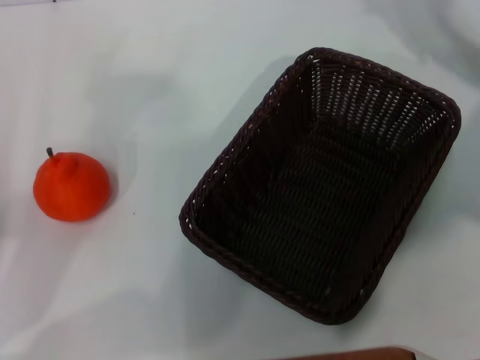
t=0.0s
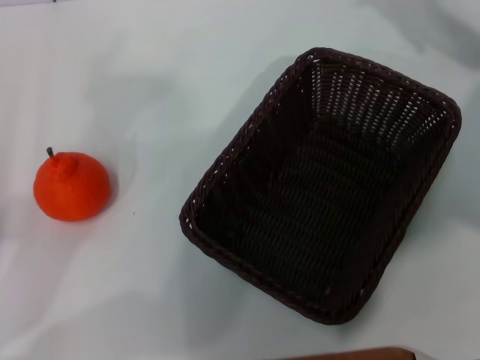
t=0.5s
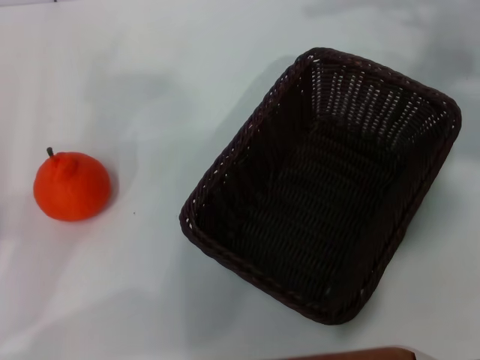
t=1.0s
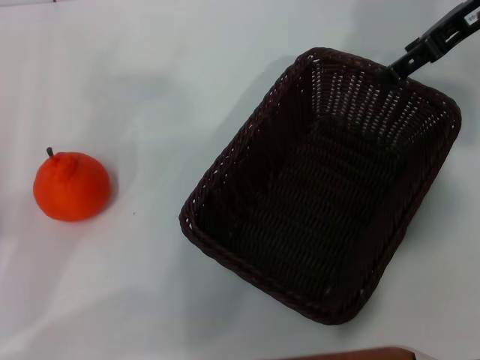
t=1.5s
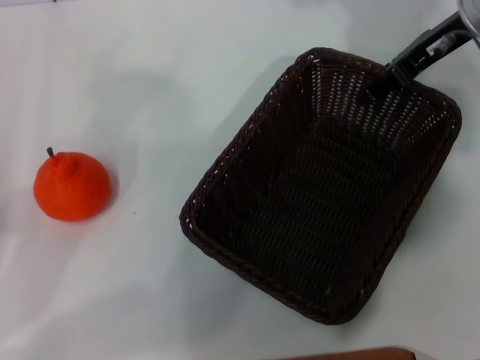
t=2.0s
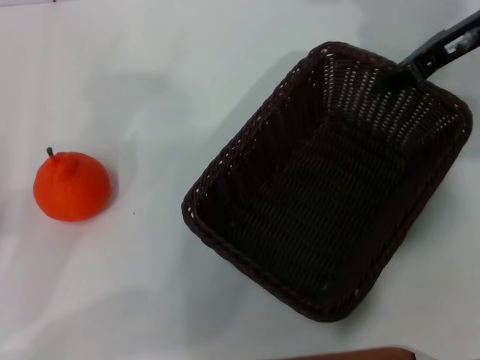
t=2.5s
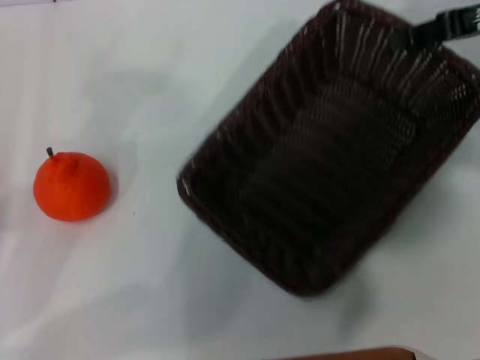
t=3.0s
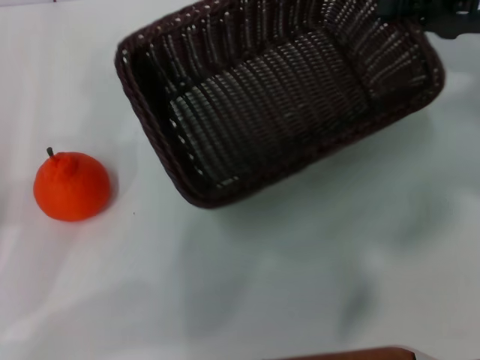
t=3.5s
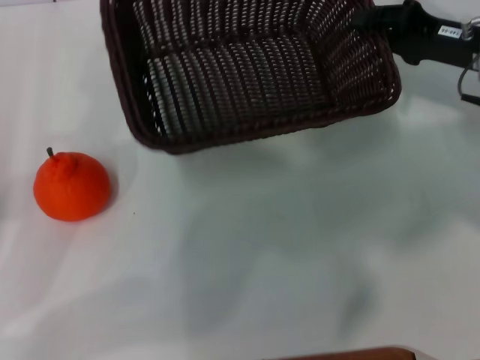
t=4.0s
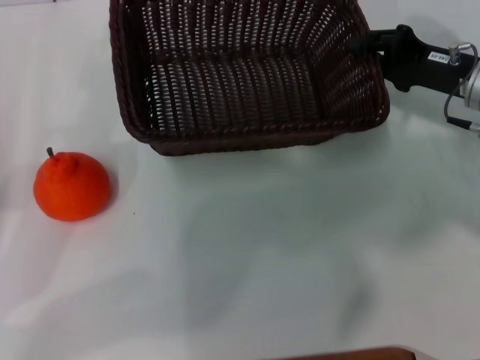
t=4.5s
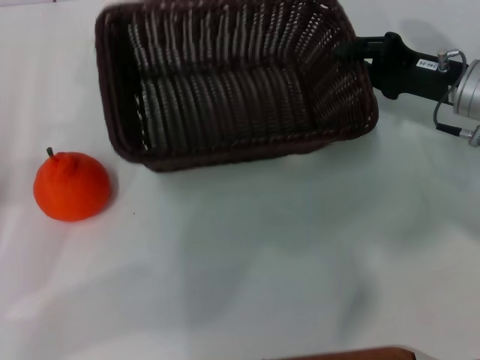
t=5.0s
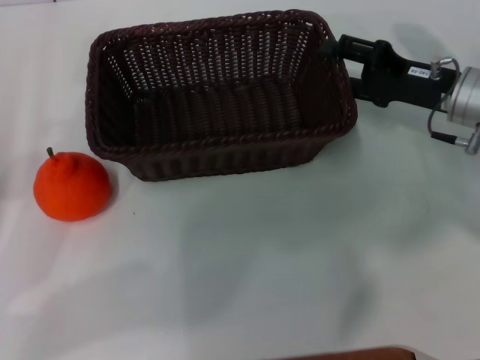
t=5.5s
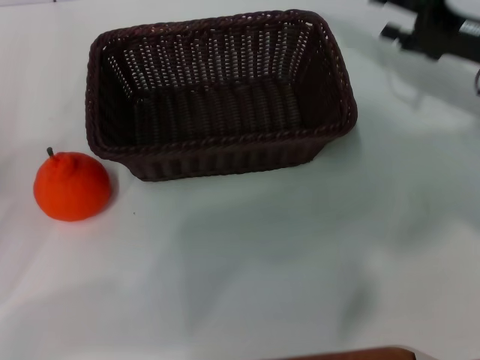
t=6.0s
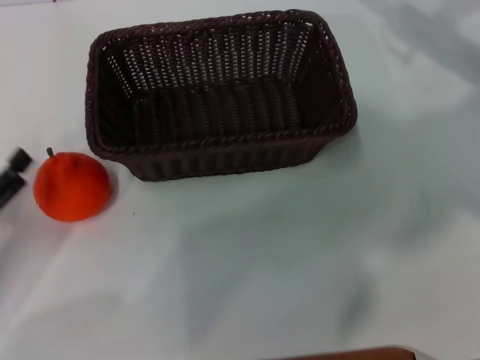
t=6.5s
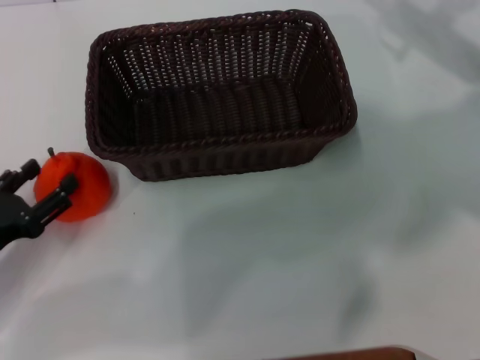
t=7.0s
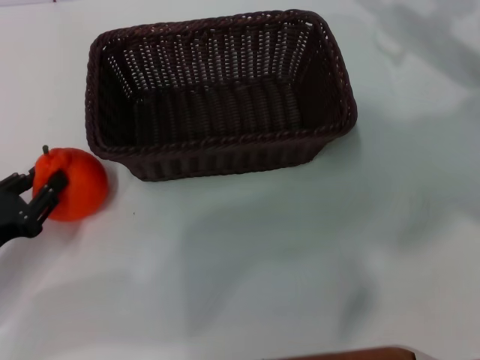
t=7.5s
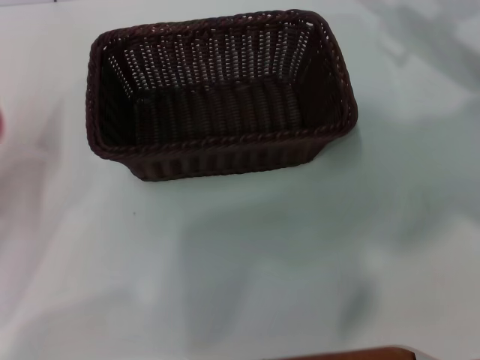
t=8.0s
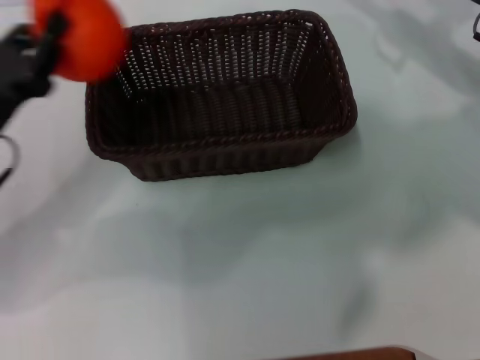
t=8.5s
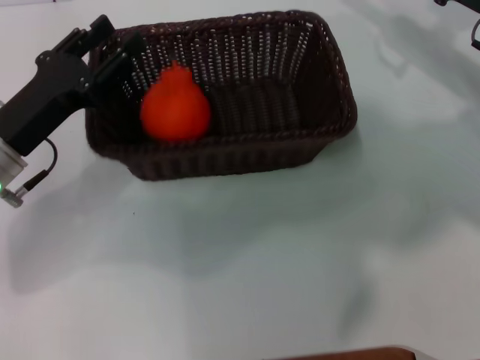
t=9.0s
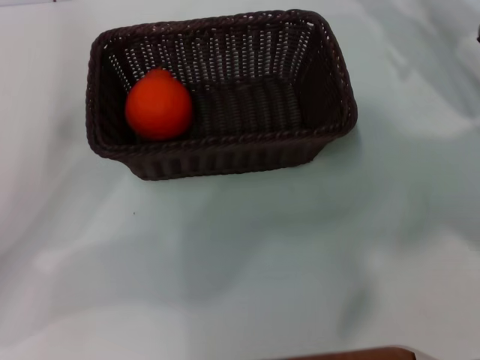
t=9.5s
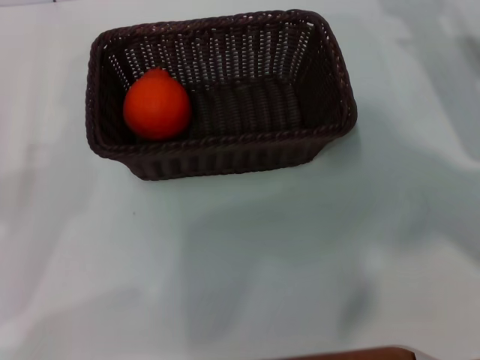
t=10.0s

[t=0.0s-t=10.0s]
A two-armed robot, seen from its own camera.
Task of the whole recording: the right gripper pick up the black basket and place it horizontally in the middle of the table, the left gripper pick up the orange and place it into the black basket.
Step, t=0.0s to t=3.0s: Pick up the dark basket with the right gripper.
Step, t=3.5s to t=5.5s: Place the dark basket in the center of view with the right gripper.
Step, t=6.0s to t=7.5s: Pick up the orange with the left gripper.
Step, t=8.0s to t=9.0s: Place the orange into the dark basket with the left gripper.
t=0.0s to t=2.0s: The right gripper heads to the left, covering about 5 cm, and reaches some 10 cm upward, then returns.
t=2.0s to t=4.0s: The right gripper shifts about 5 cm downward, and closes.
t=4.0s to t=6.0s: The right gripper opens up.
t=6.0s to t=8.0s: The left gripper closes.
t=8.0s to t=10.0s: The right gripper moves backward, roughly 5 cm. Meanwhile the left gripper travels to the right and back again, approximately 10 cm each way, and opens up.
